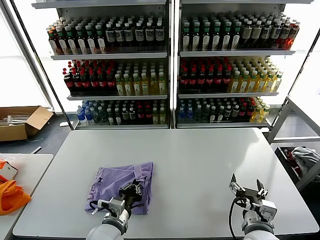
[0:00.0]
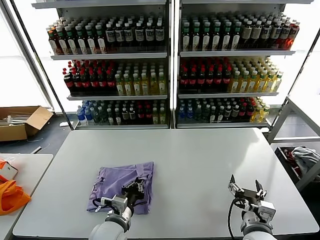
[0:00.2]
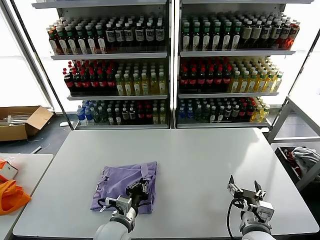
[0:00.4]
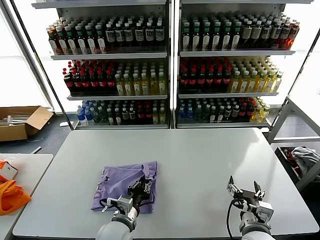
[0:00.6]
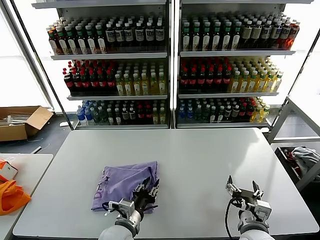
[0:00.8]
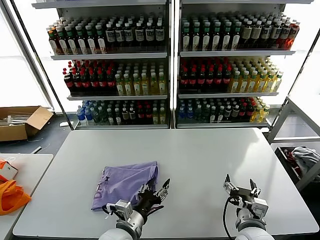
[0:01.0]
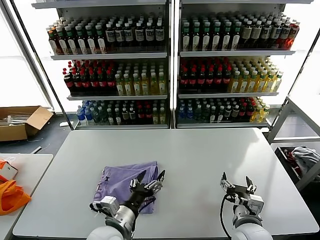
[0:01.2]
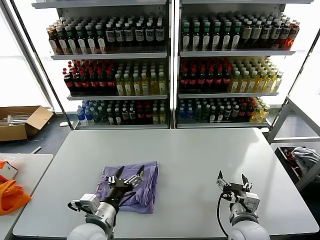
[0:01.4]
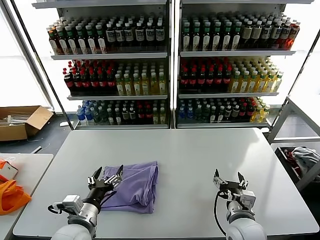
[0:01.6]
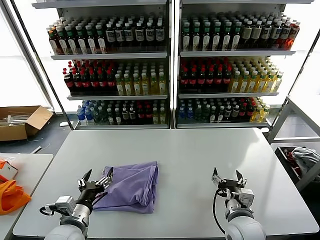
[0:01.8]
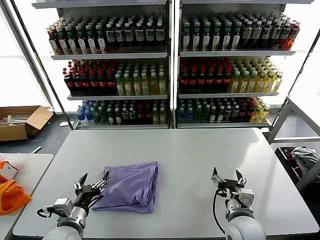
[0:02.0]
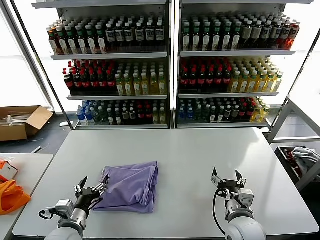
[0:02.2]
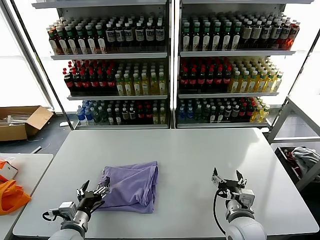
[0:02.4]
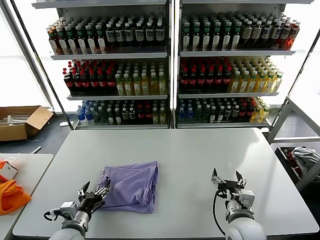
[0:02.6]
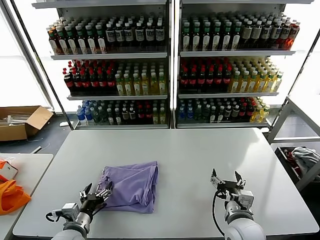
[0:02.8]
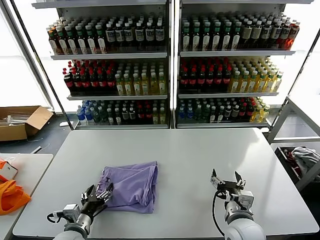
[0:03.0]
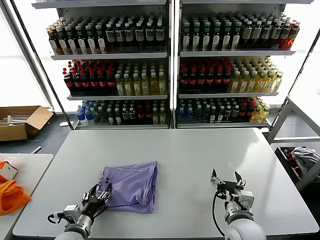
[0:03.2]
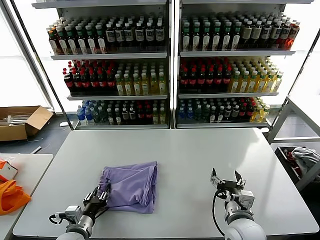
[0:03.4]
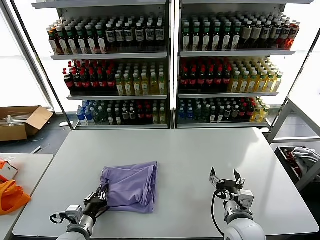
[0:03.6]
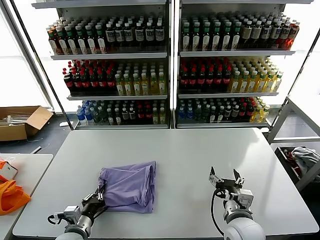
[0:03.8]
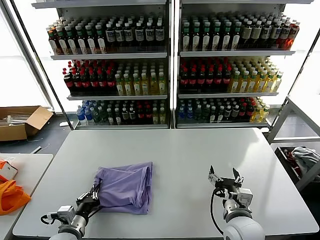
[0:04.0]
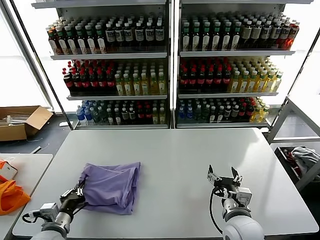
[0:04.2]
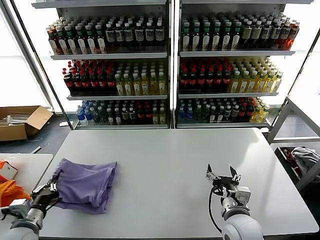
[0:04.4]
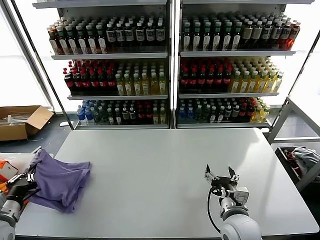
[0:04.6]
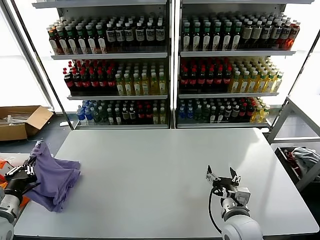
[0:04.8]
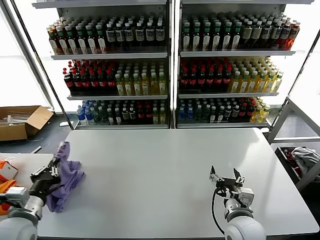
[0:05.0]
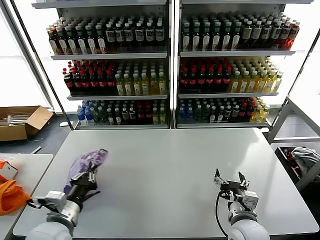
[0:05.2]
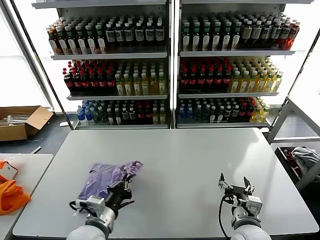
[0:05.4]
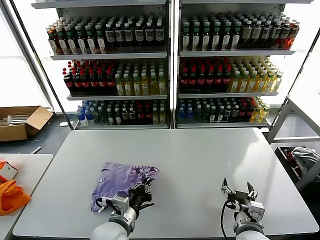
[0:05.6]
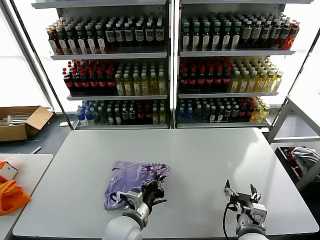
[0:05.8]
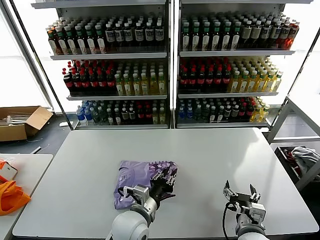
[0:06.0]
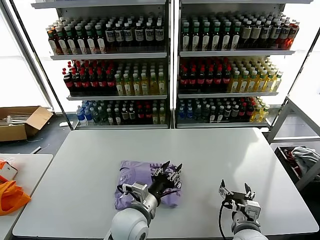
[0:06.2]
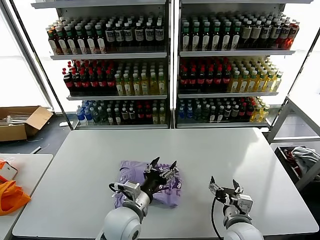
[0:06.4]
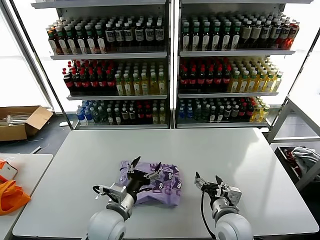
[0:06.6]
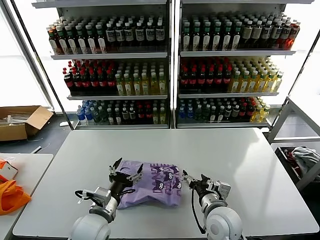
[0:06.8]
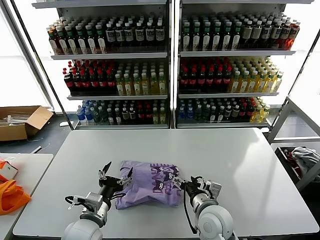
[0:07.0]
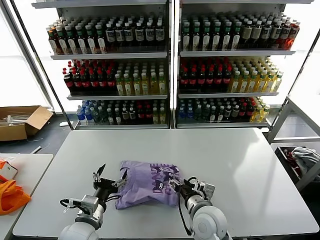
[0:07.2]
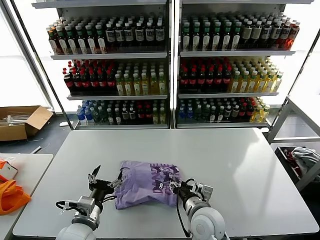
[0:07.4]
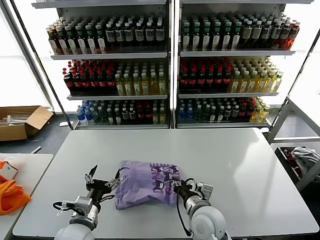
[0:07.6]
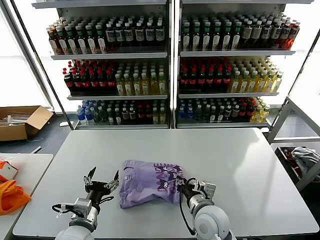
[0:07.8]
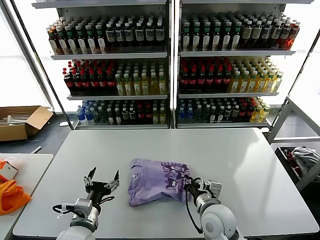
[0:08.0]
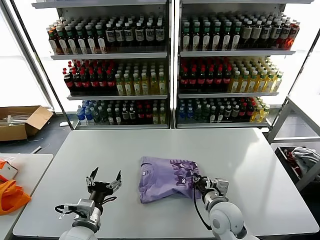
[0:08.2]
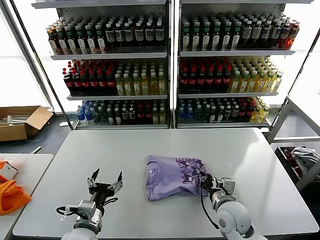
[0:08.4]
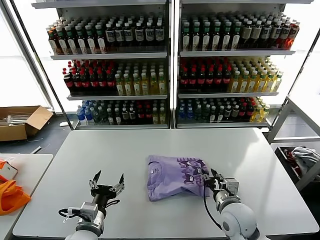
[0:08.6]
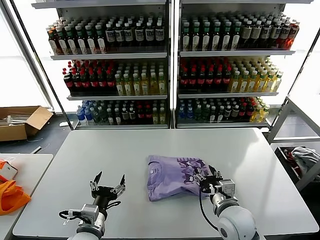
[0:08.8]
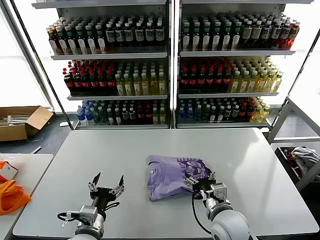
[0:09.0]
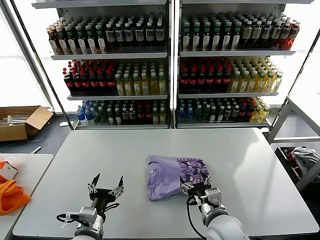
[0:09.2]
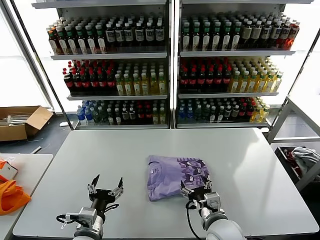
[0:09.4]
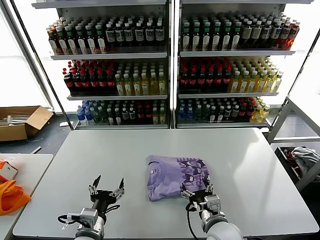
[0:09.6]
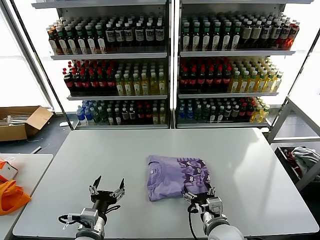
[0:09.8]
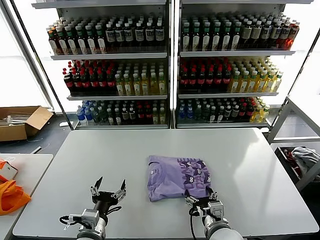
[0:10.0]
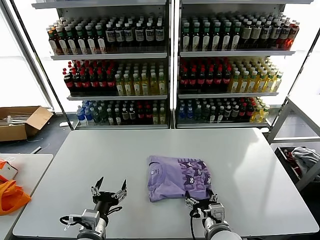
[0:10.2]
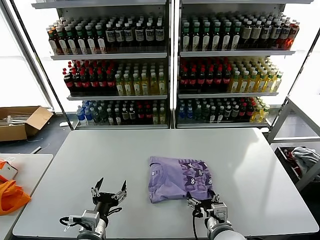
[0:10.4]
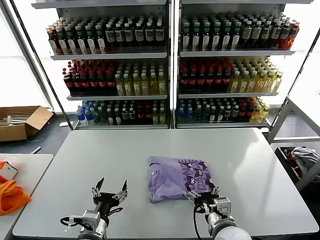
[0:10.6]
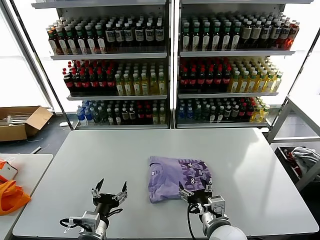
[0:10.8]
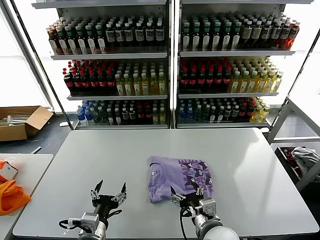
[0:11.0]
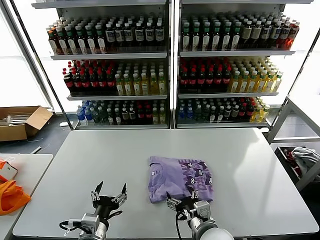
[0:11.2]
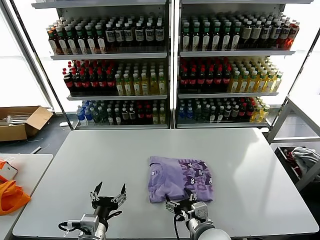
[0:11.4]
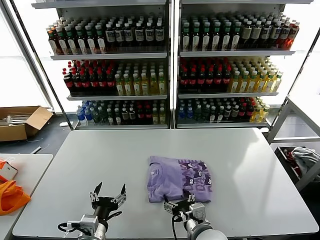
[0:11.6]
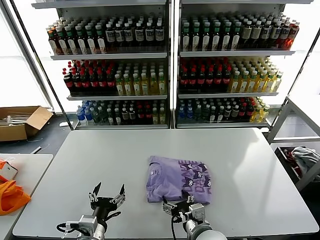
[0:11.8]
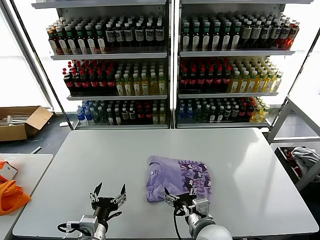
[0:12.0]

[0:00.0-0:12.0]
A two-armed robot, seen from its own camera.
Task of the whole recording: fold and organize the clothes.
Step, 0:01.0 to 0:06.2: Flip the folded clothes over with left gripper.
0:00.0 to 0:01.6: The left gripper shifts some 5 cm to the left, and opens.
0:01.6 to 0:03.0: The left gripper is displaced downward and to the left by roughly 10 cm.
0:03.0 to 0:04.4: The left gripper heads to the left and upward, covering about 10 cm, and closes up.
0:04.4 to 0:06.0: The left gripper moves to the right, roughly 30 cm, while the right gripper changes place by about 5 cm.
0:06.0 to 0:07.6: The left gripper shifts some 15 cm to the left, and opens its fingers. Meanwhile the right gripper travels to the left and forward by roughly 15 cm, and closes up.
0:07.6 to 0:09.0: The right gripper goes about 5 cm to the right, and opens its fingers.
0:09.0 to 0:10.4: The right gripper shifts by about 5 cm.
0:10.4 to 0:12.0: There are only small adjustments of the grippers.

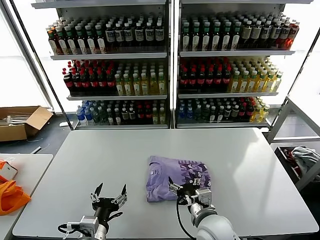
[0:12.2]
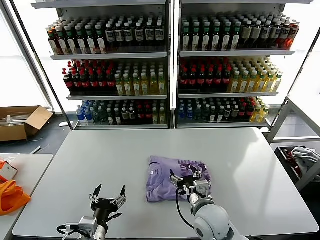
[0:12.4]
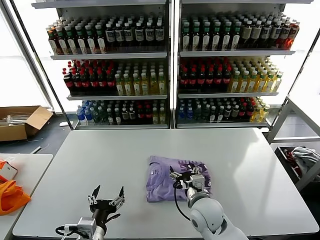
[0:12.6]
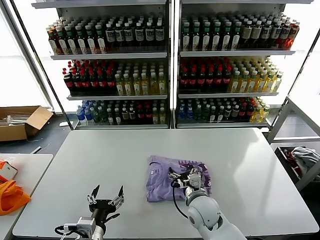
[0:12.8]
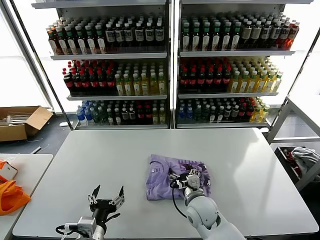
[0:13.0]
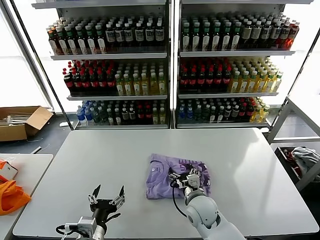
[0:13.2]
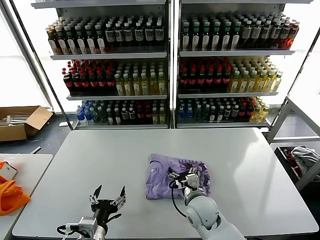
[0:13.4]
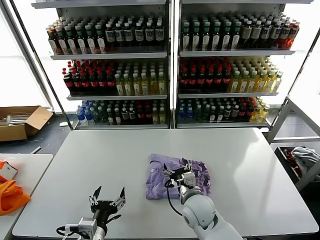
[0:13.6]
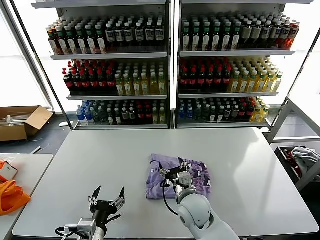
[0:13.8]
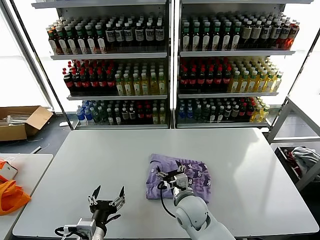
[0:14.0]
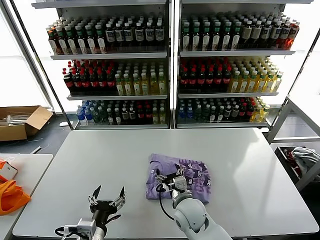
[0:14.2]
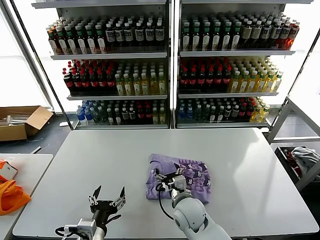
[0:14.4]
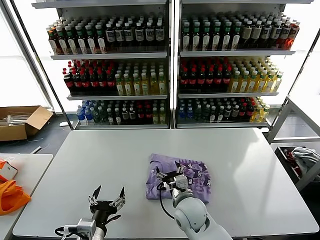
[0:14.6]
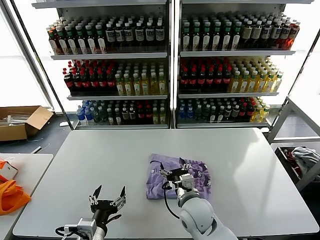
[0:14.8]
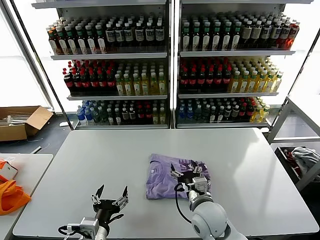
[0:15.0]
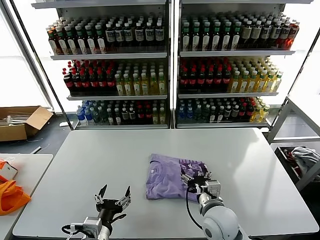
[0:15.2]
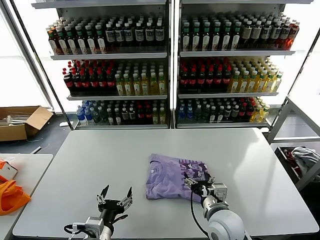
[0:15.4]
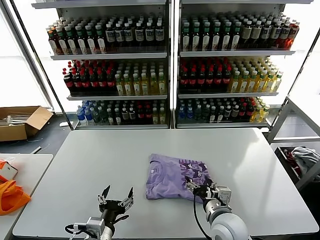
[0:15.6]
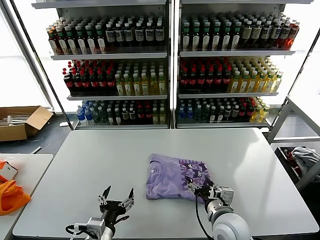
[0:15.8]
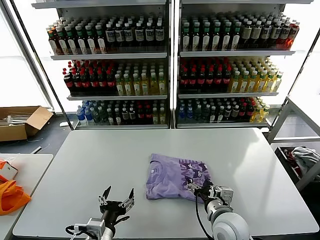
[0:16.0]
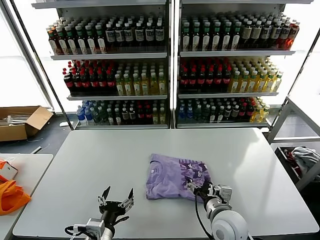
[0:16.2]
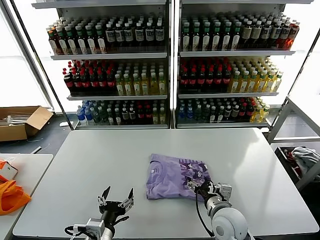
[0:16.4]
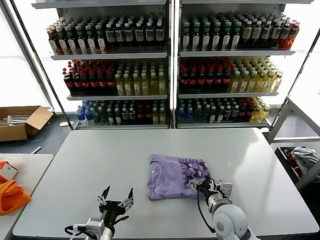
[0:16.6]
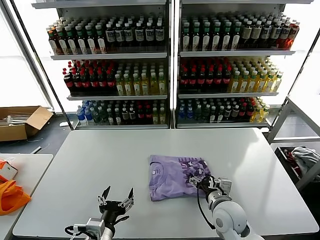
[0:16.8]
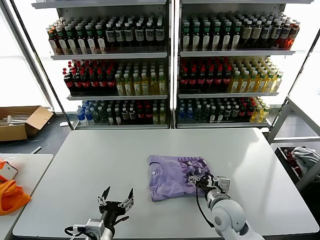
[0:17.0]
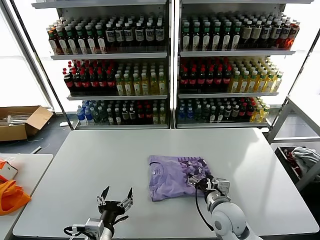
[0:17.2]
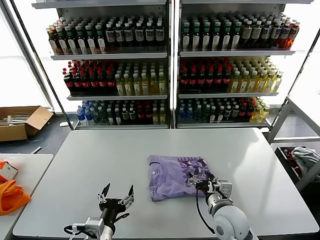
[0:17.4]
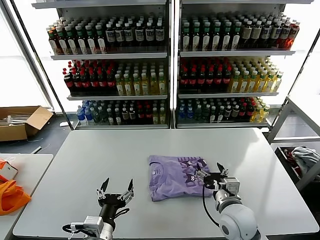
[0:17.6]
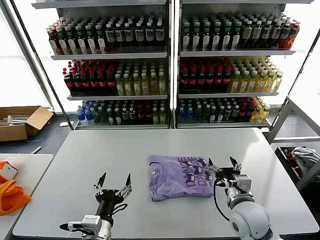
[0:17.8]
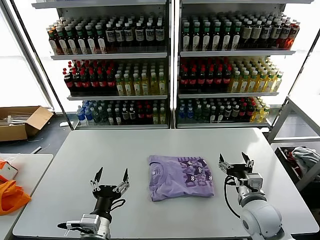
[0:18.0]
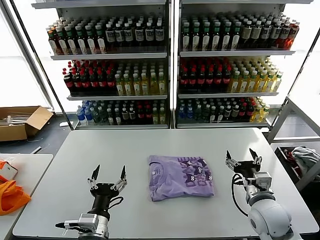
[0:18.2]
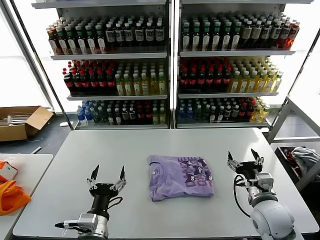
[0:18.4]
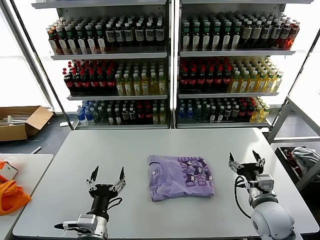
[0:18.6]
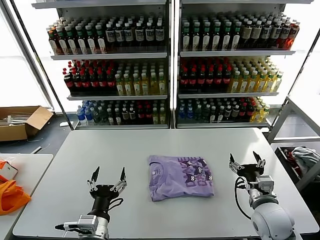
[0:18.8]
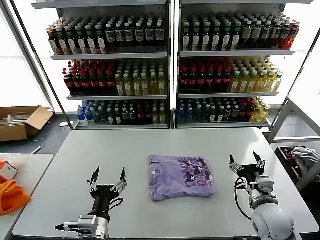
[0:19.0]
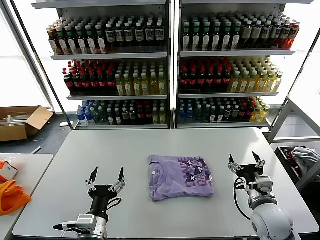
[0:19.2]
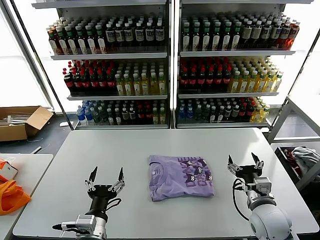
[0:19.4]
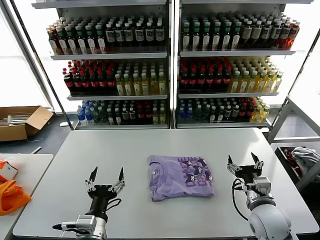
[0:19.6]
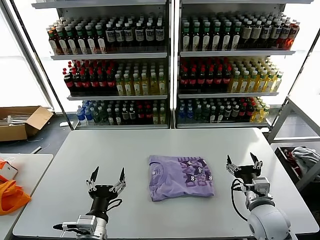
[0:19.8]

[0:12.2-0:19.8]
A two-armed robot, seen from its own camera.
Task of the whole recording: fold and organize the clothes.
Step, 0:12.2 to 0:17.4: Drag the clothes to the center of the table.
0:12.2 to 0:13.8: The right gripper moves forward, some 10 cm.
0:13.8 to 0:15.2: The right gripper shifts approximately 5 cm to the right.
0:15.2 to 0:16.8: The grippers make only small movements.
0:16.8 to 0:18.2: The right gripper moves to the right and upward, some 10 cm.
0:18.2 to 0:19.8: The grippers stay close to where they were, moving slightly.
